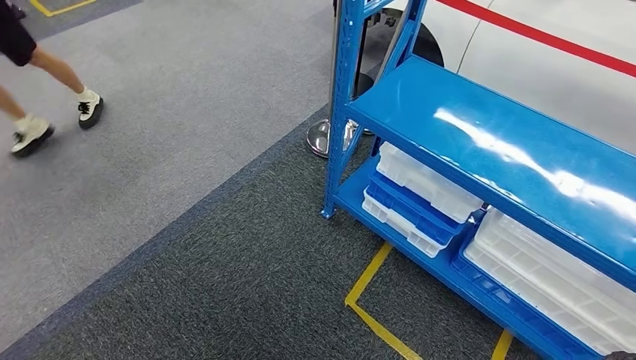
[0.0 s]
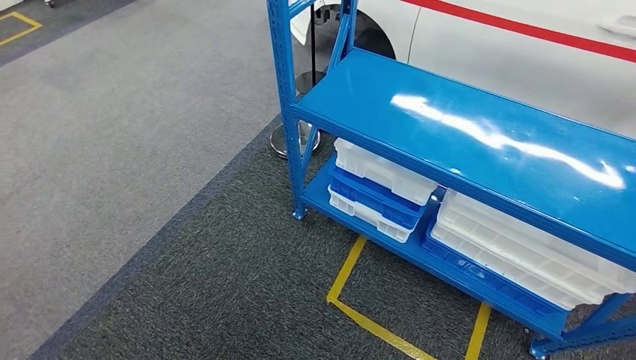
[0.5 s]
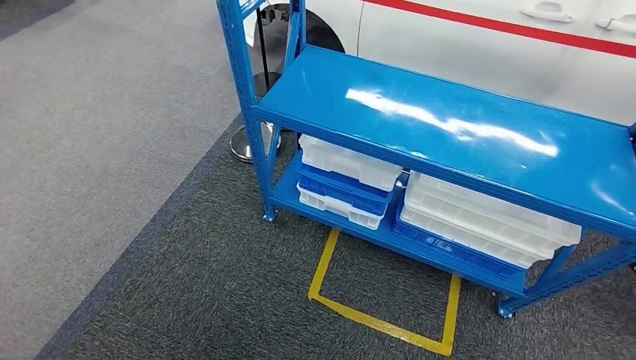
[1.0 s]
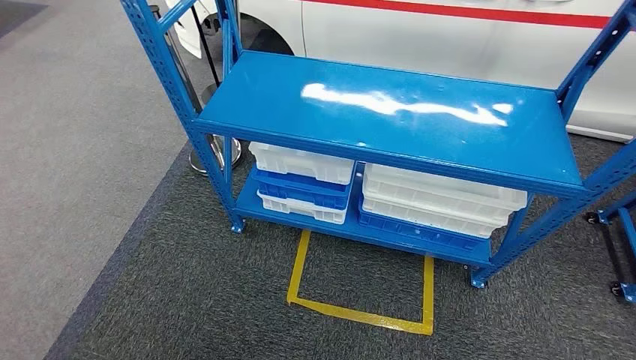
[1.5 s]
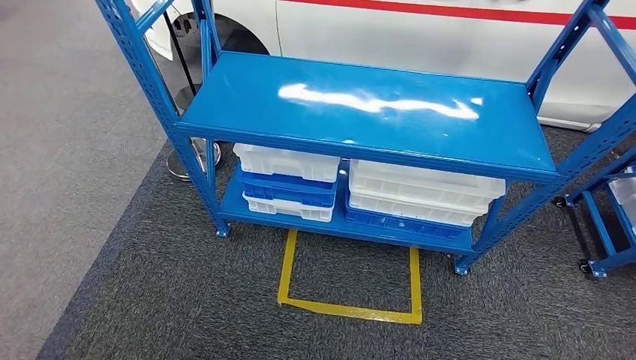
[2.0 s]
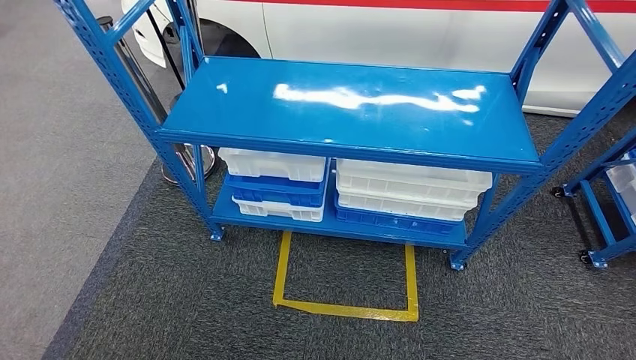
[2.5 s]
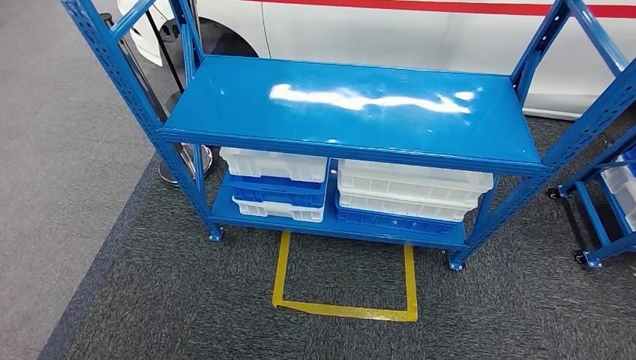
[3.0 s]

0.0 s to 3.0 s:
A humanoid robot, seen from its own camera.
Step, 0.0 to 3.0 s: Return to the initial position at the shelf.
